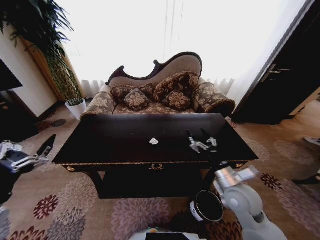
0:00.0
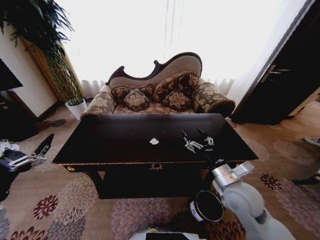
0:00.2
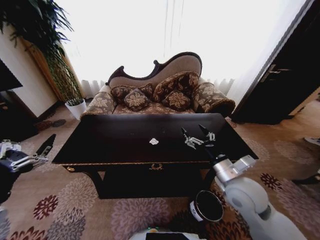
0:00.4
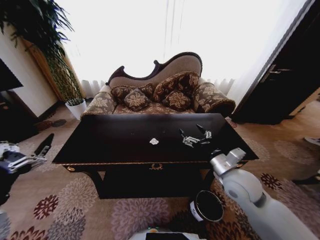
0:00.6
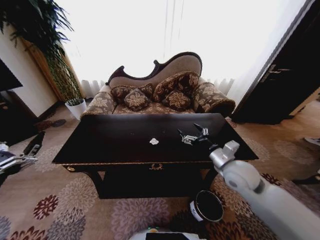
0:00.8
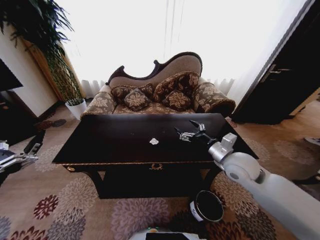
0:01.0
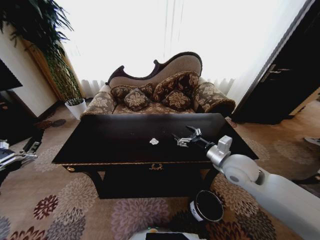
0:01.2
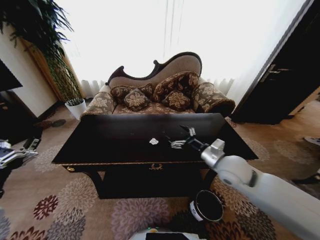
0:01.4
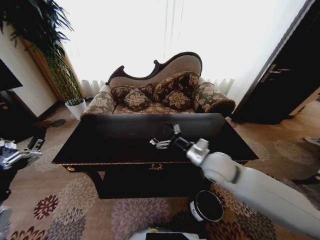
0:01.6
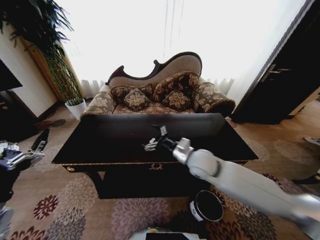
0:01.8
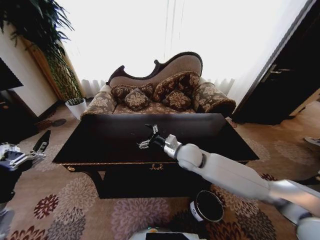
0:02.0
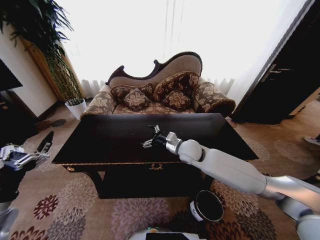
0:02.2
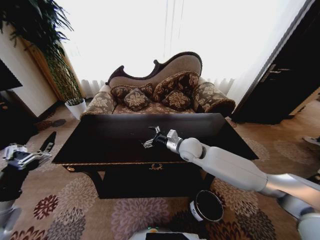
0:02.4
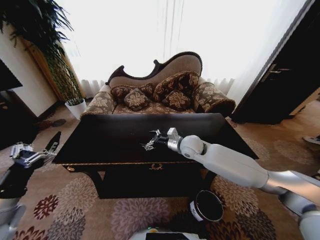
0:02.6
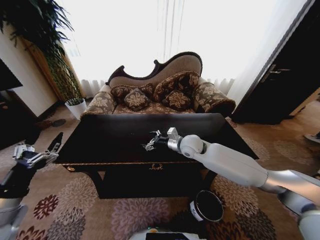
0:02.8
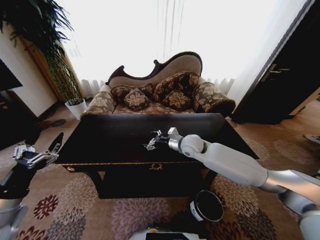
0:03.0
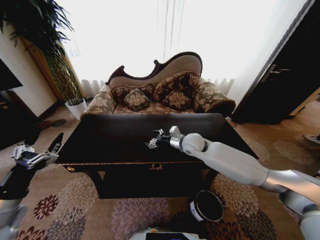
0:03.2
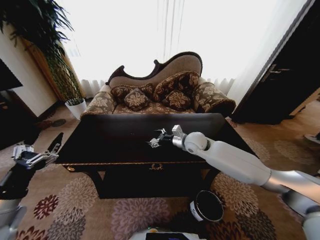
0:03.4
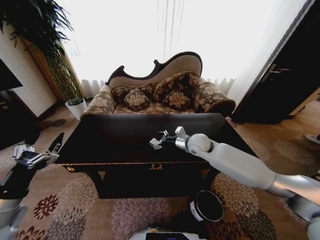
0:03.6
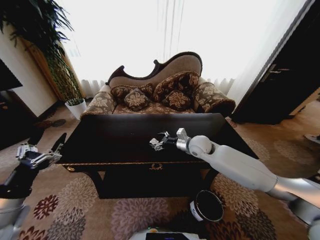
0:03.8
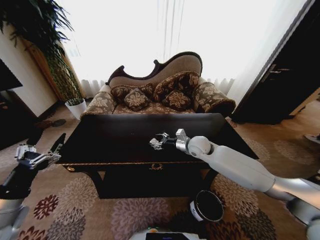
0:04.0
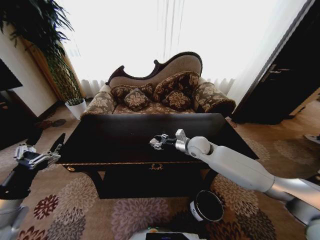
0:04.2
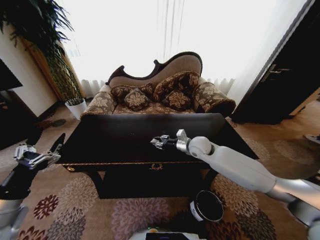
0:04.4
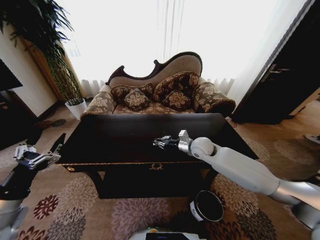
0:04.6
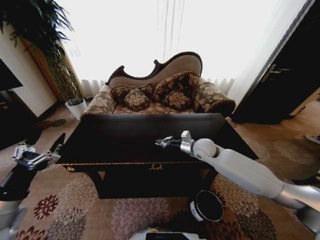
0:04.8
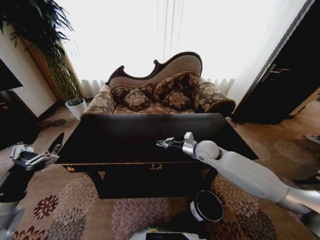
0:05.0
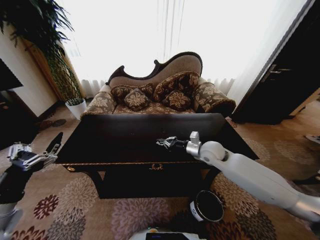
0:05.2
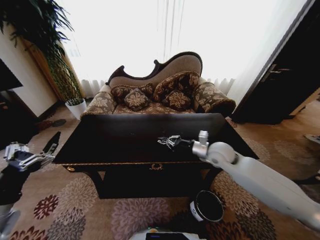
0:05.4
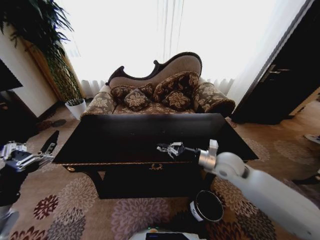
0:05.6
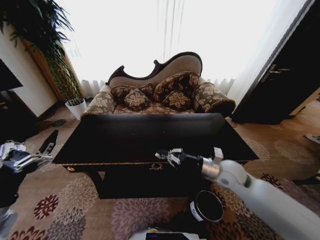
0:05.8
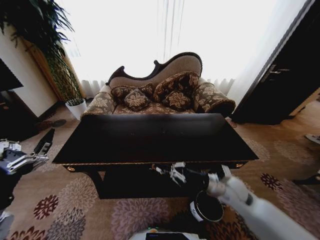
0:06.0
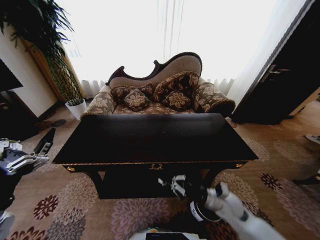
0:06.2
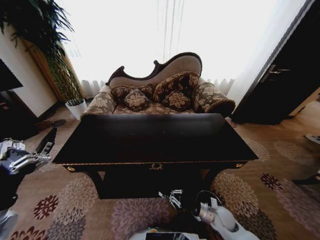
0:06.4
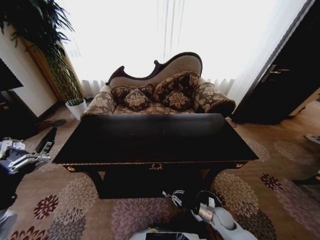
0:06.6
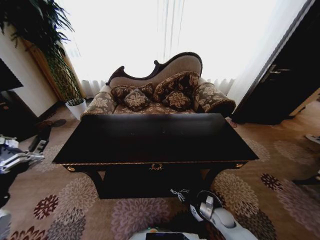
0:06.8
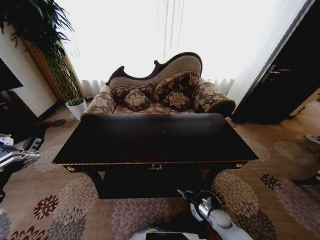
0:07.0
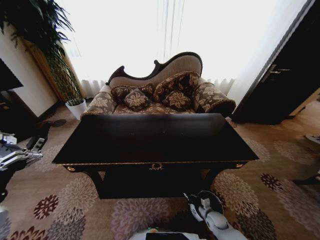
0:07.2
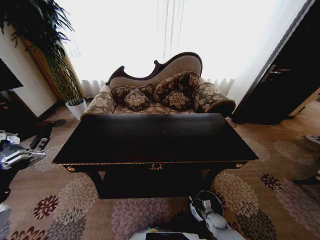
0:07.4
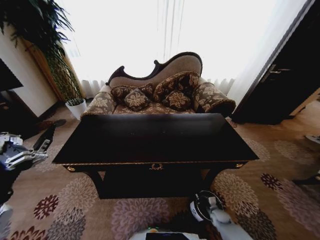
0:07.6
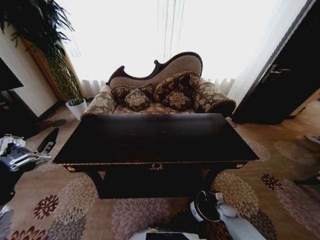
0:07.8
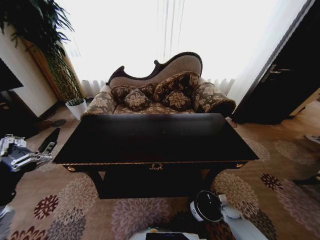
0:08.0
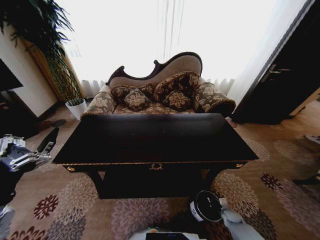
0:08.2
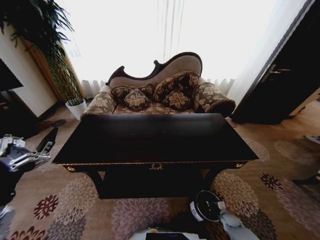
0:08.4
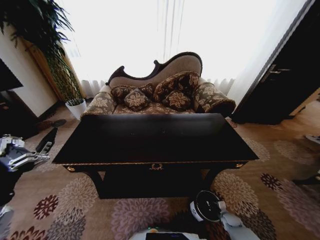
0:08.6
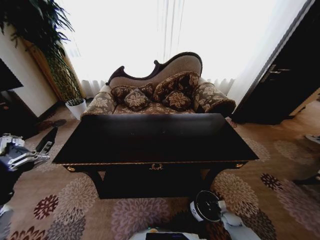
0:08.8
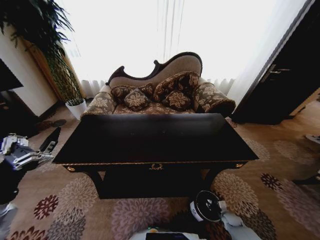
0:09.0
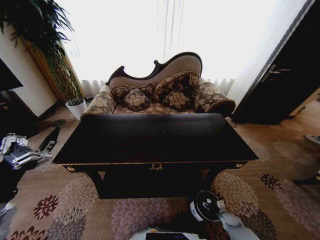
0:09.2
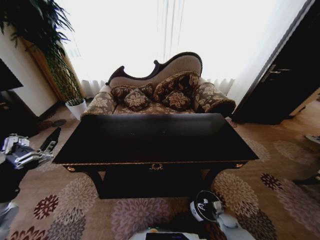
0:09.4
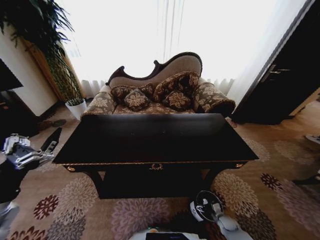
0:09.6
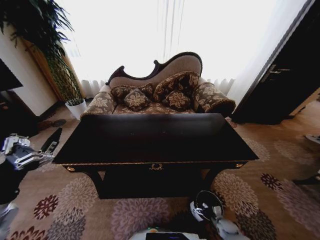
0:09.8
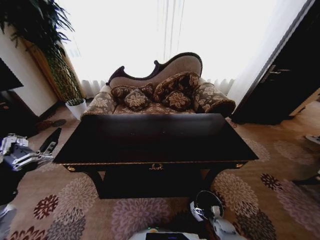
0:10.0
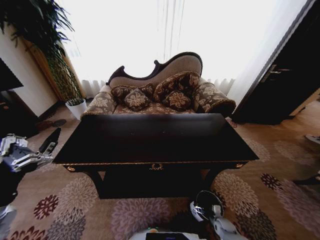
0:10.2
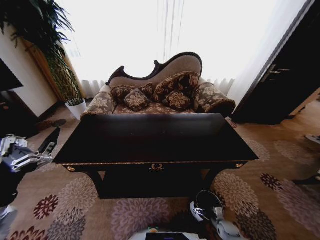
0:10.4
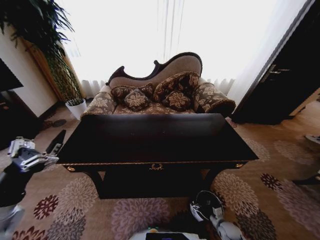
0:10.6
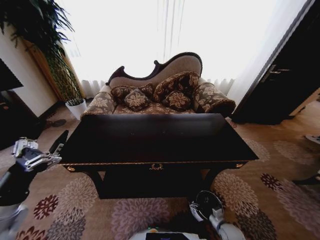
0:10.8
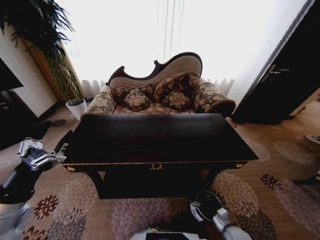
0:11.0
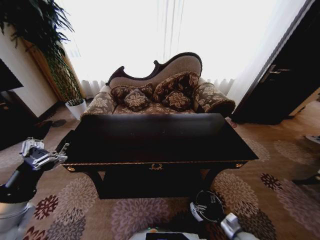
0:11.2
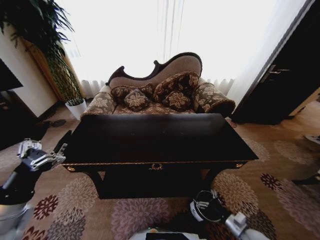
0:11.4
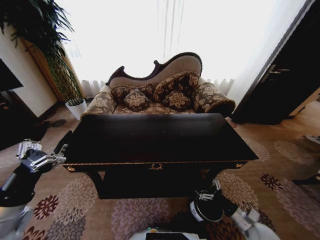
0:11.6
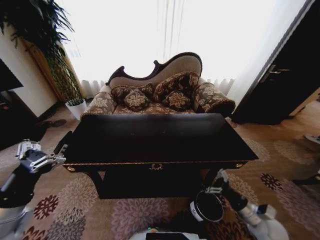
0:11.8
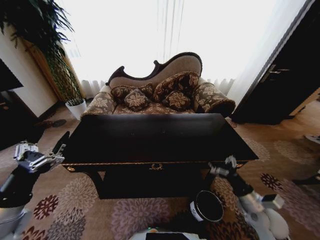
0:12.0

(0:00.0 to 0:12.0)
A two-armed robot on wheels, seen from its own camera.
Task of the whole recording: Move to the front of the table and place the trash on the table into the trash bin.
0:00.0 - 0:01.6: The right gripper shifts approximately 15 cm to the left, forward and upward.
0:01.6 - 0:03.0: The right gripper is displaced forward by approximately 10 cm.
0:03.0 - 0:04.4: The right gripper closes.
0:04.4 - 0:06.0: The right gripper moves backward and to the right, roughly 20 cm, and closes its fingers.
0:06.0 - 0:07.6: The right gripper moves downward, about 35 cm.
0:07.6 - 0:09.0: The right gripper heads to the right, covering approximately 5 cm, and opens its fingers.
0:09.0 - 0:10.4: The right gripper changes place by roughly 5 cm, and opens.
0:10.4 - 0:12.0: The right gripper is displaced upward by some 30 cm.

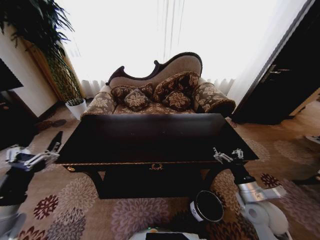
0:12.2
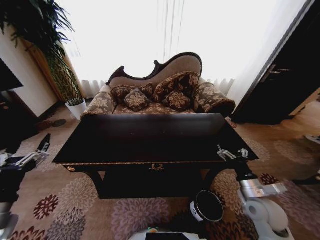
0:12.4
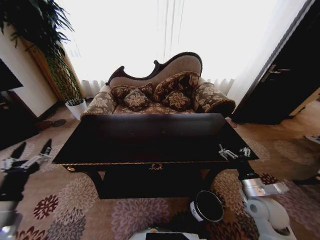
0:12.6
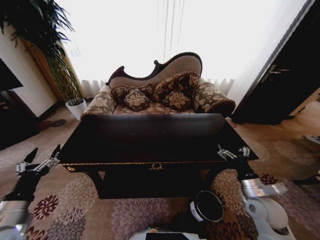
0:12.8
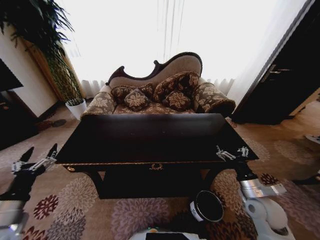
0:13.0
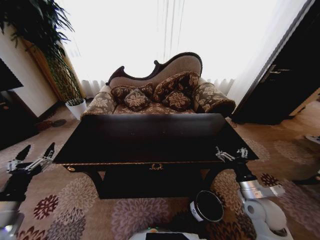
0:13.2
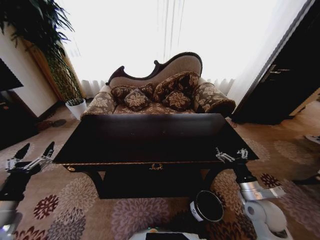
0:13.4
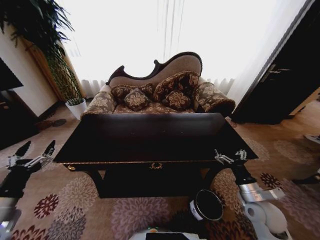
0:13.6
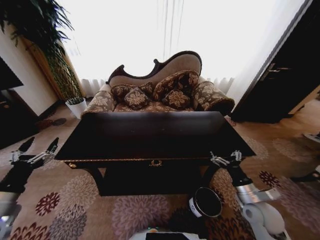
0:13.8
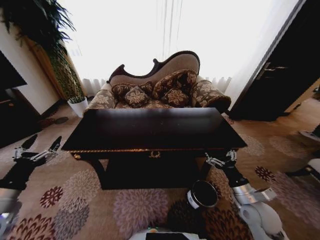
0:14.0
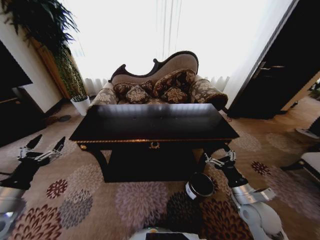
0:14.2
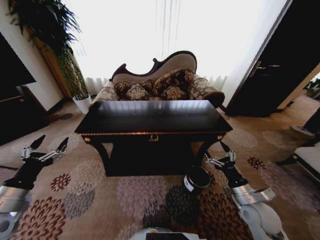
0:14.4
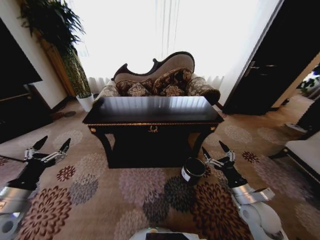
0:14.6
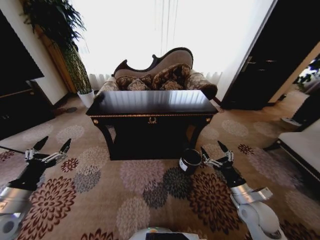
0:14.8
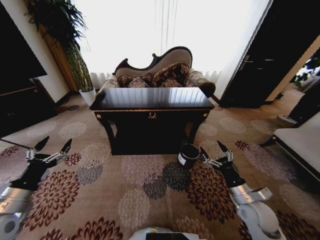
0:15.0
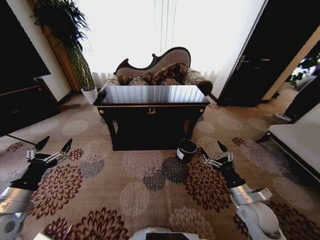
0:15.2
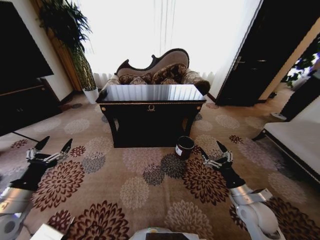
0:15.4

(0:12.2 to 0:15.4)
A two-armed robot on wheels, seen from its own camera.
Task of the whole recording: Move to the front of the table and place the trash on the table into the trash bin.
0:12.2 - 0:13.8: The left gripper moves to the left, about 5 cm.

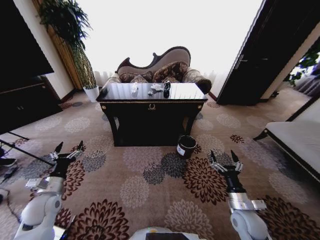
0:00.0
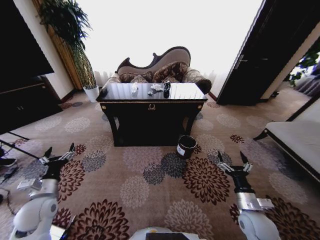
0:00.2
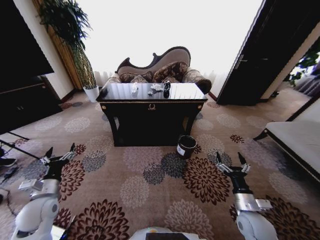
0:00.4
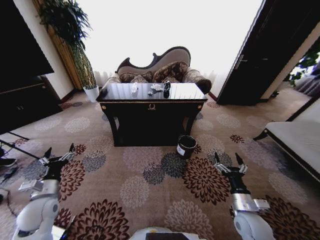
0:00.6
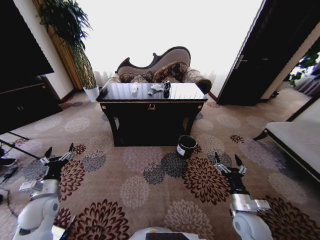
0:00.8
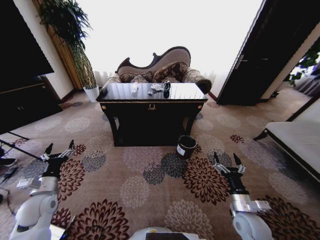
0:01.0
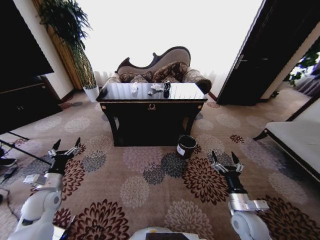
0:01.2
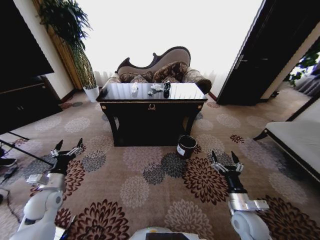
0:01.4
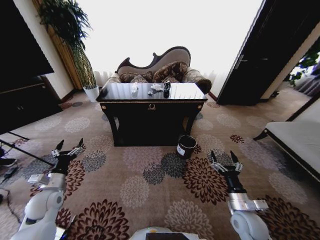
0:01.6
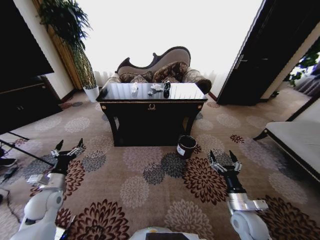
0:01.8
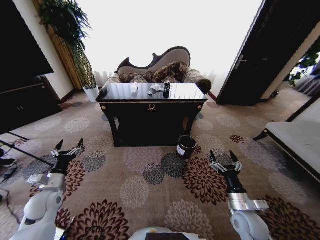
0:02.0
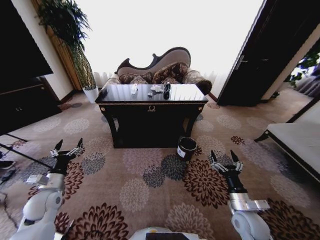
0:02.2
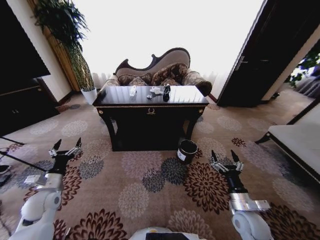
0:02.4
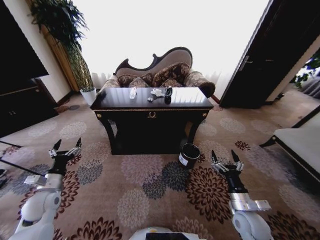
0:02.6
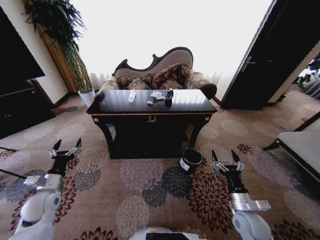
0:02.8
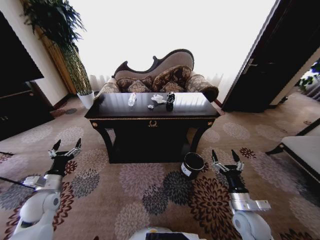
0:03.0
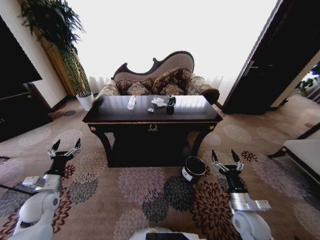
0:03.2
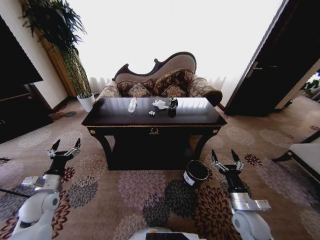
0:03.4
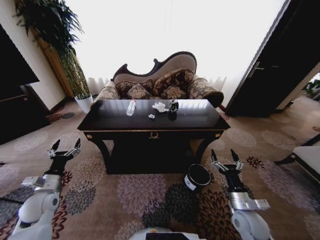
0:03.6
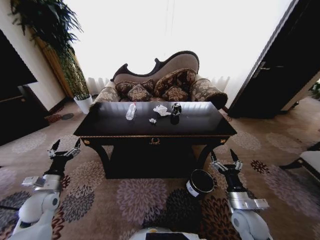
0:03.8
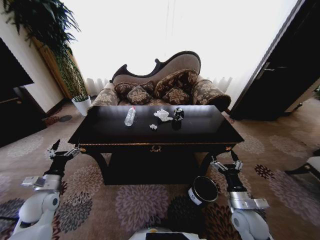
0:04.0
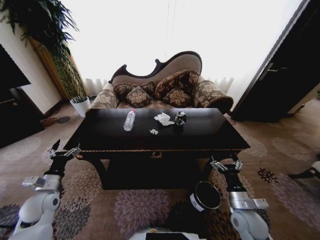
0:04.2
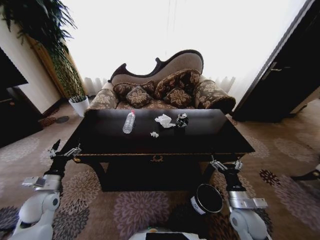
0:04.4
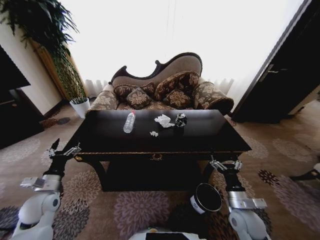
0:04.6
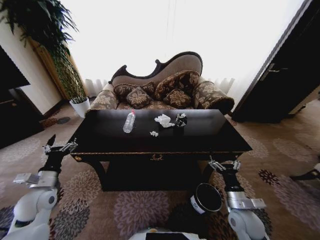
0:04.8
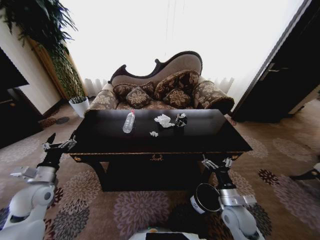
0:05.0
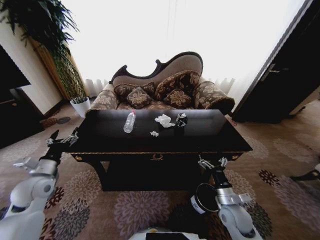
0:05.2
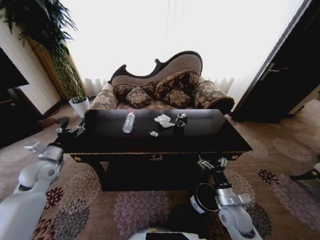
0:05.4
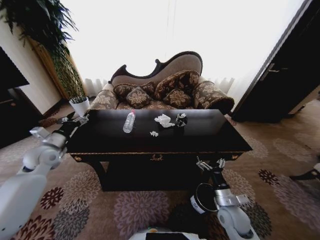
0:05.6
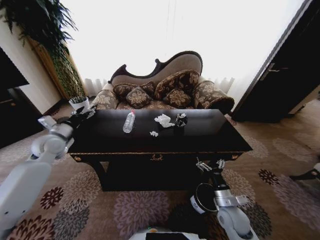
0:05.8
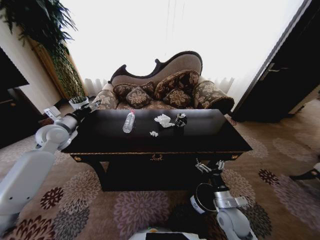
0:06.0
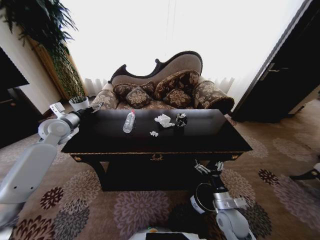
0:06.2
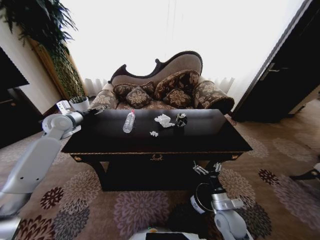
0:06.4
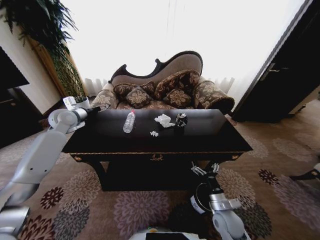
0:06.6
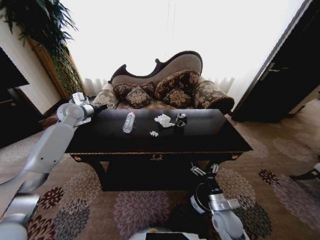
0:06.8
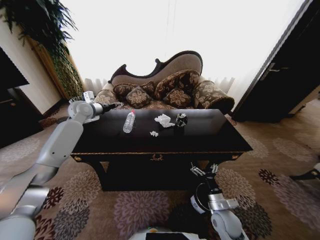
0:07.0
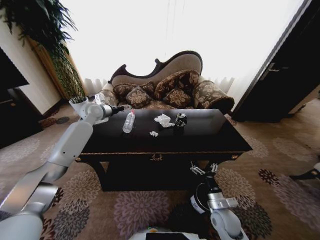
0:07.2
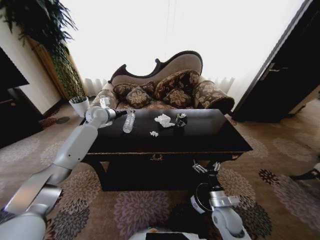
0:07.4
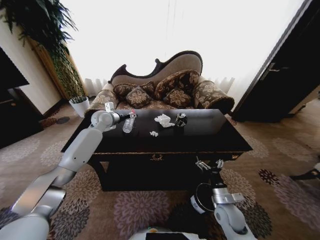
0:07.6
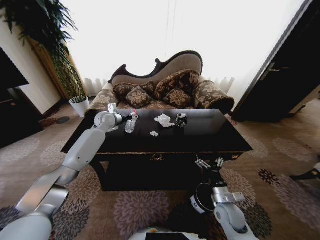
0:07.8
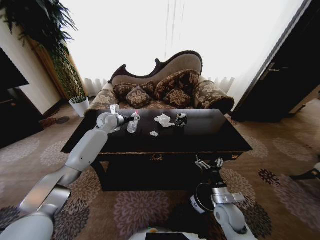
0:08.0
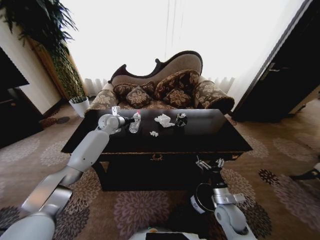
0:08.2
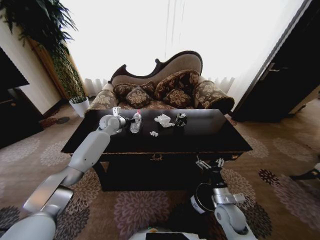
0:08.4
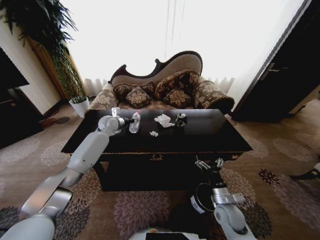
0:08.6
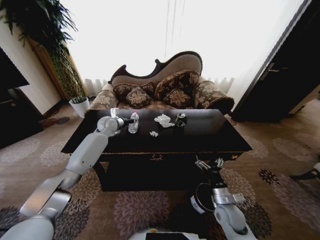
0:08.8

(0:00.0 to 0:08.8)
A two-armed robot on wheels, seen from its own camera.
Task of the whole recording: Move to the front of the table and place the trash on the table into the trash bin.
0:04.4 - 0:05.8: The left gripper travels forward and upward by roughly 20 cm.
0:05.8 - 0:07.4: The left gripper goes approximately 20 cm forward and to the right.
0:07.4 - 0:08.8: The left gripper goes approximately 5 cm downward, and closes up.
